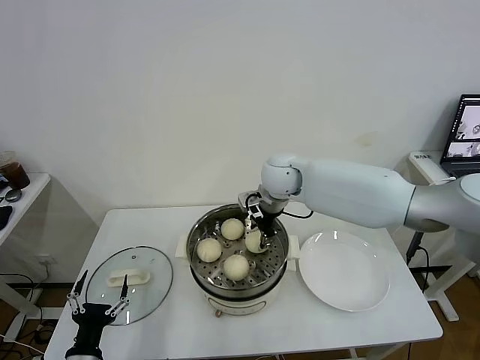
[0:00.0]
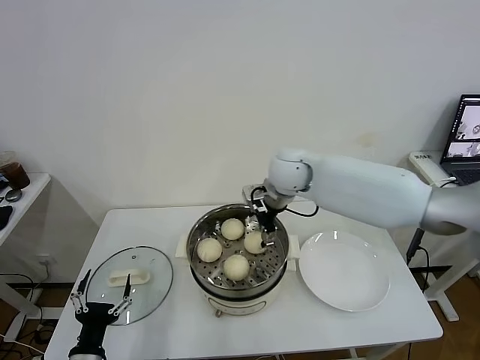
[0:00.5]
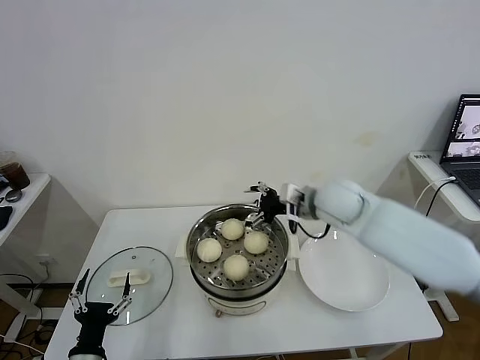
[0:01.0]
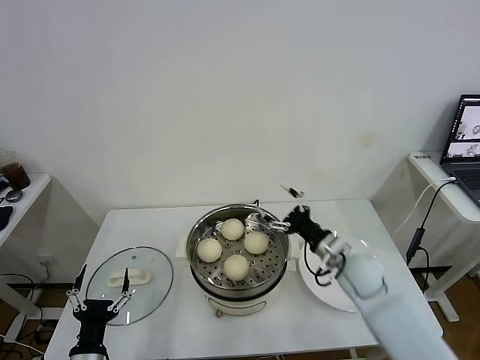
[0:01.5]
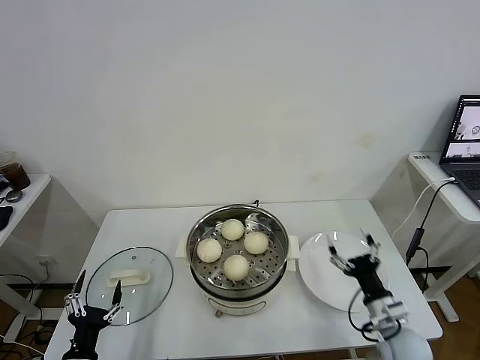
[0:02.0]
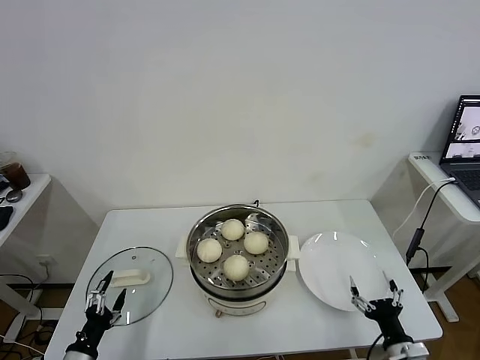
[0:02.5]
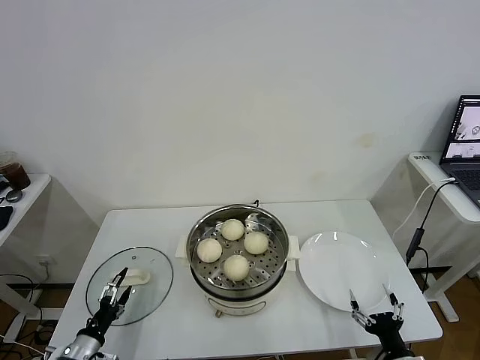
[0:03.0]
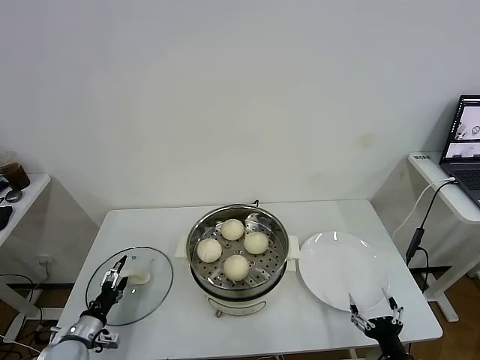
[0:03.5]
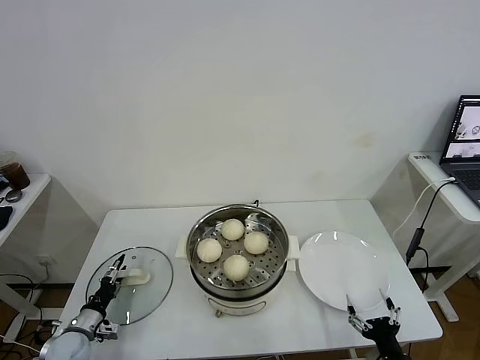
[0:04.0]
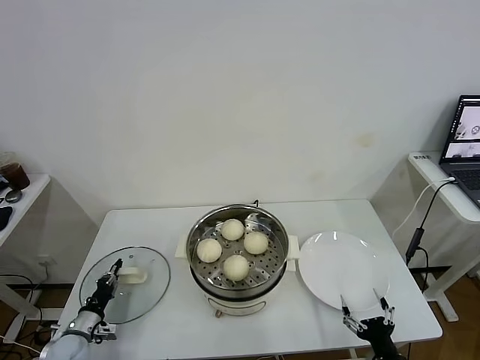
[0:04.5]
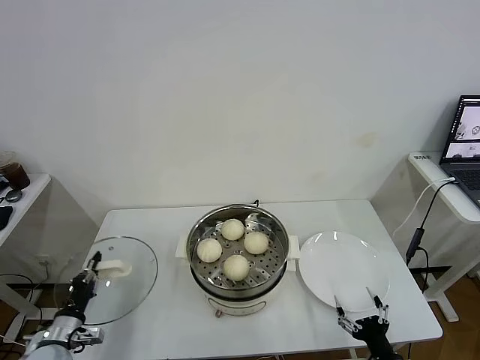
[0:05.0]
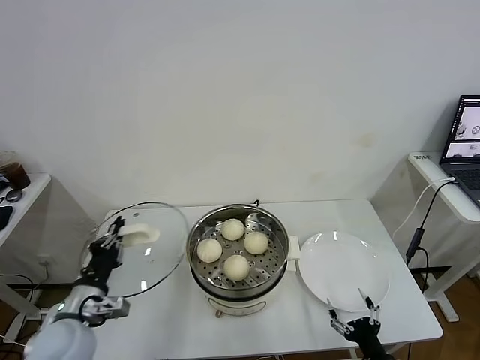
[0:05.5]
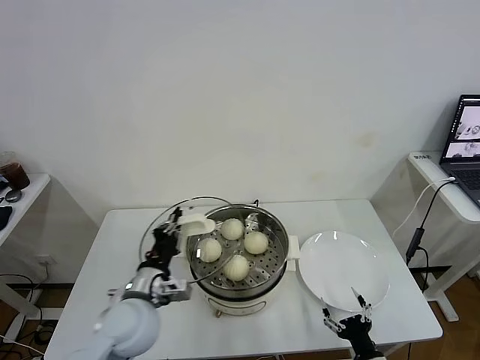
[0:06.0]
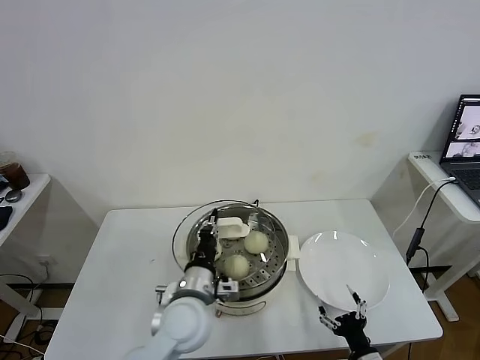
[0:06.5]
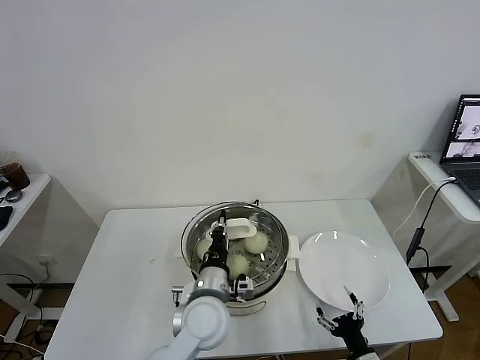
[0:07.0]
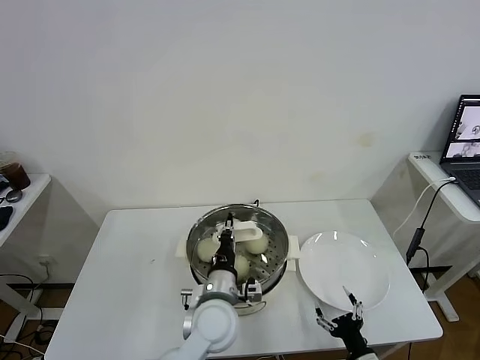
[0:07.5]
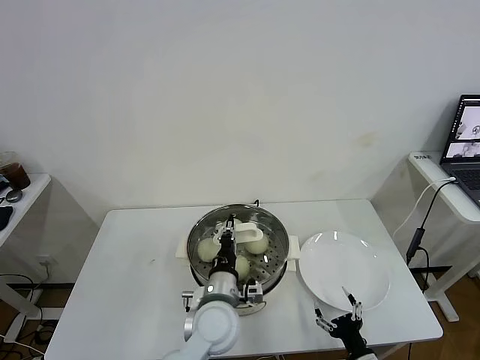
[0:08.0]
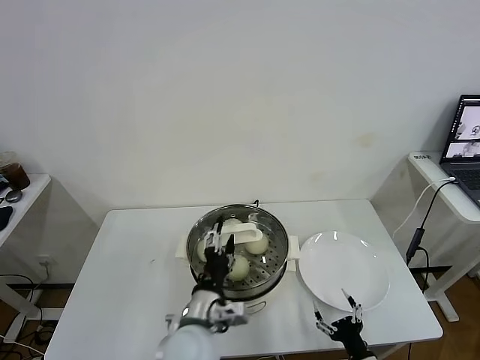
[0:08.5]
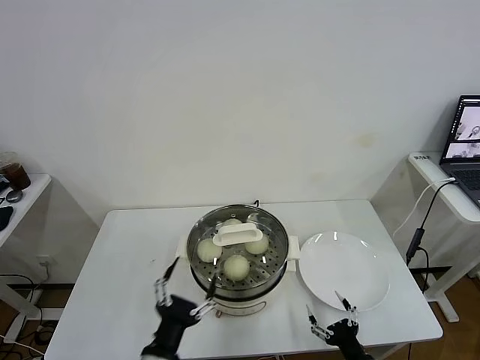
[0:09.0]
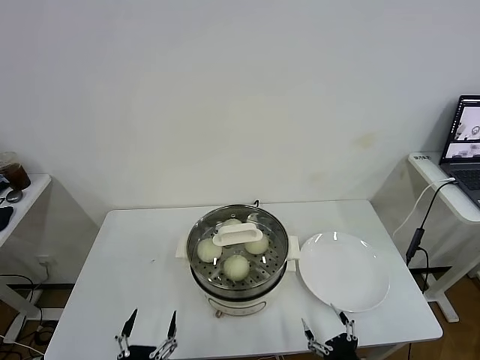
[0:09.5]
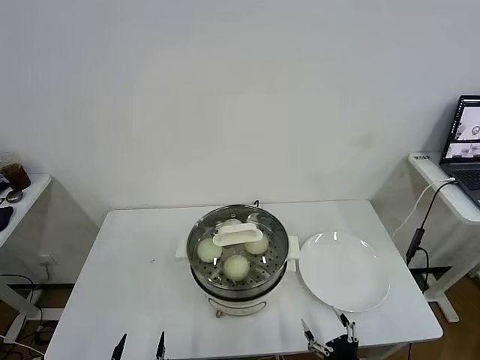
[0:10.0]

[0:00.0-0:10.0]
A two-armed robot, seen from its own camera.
Task of the whole recording: take steamed baozi put them in steamer.
Step, 0:01.0 to 0:04.5: Grasp the pot lid with left gripper.
Step, 0:05.0 to 0:08.5: Place the pot lid on the steamer with left gripper.
0:00.0 to 0:02.0: The right gripper travels backward, to the right and downward by some 50 cm, and opens.
0:02.0 to 0:04.0: The left gripper goes roughly 20 cm forward, to the left and downward. The right gripper is displaced backward by some 10 cm.
0:04.0 to 0:06.0: The left gripper heads to the right and upward, covering roughly 30 cm, and closes up.
0:06.0 to 0:08.0: The left gripper shifts about 15 cm to the right.
0:08.0 to 0:10.0: The left gripper shifts roughly 30 cm backward and to the left, and opens, while the right gripper heads backward, covering approximately 5 cm.
